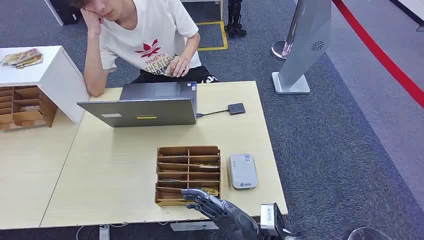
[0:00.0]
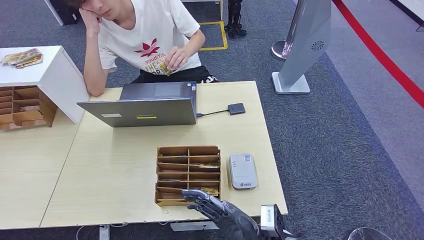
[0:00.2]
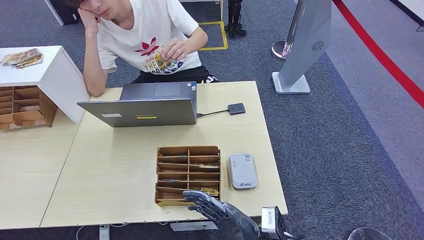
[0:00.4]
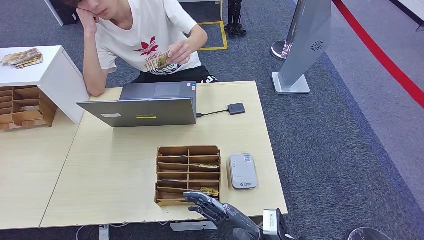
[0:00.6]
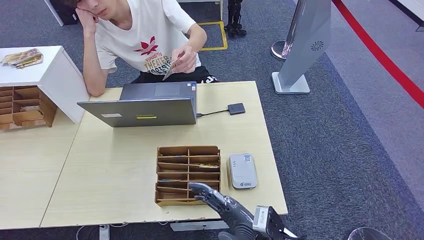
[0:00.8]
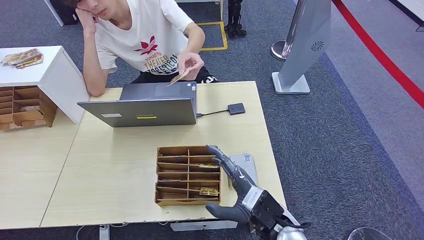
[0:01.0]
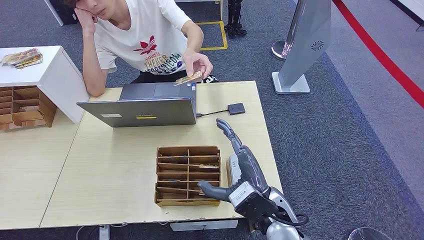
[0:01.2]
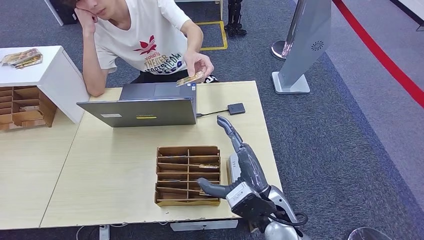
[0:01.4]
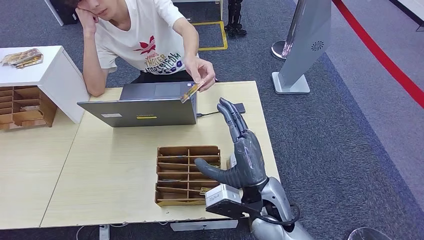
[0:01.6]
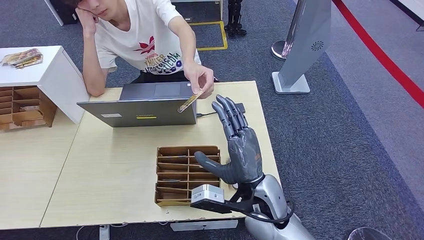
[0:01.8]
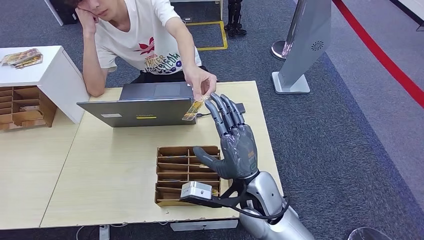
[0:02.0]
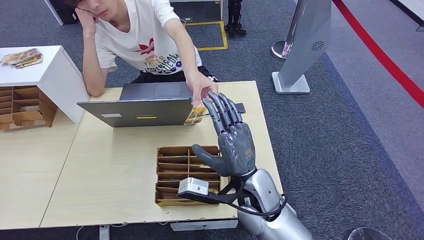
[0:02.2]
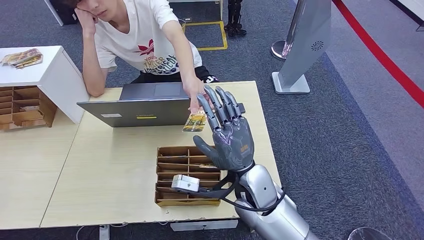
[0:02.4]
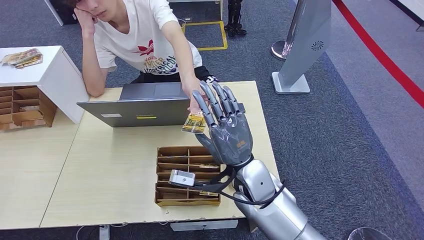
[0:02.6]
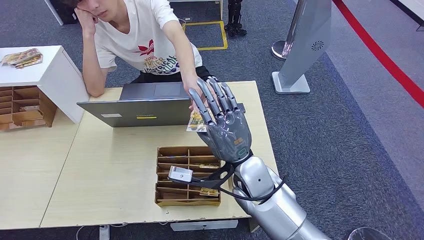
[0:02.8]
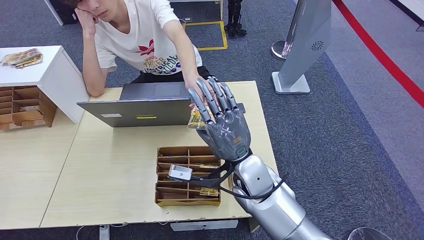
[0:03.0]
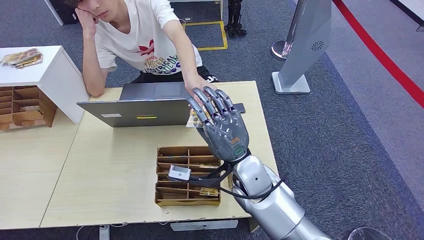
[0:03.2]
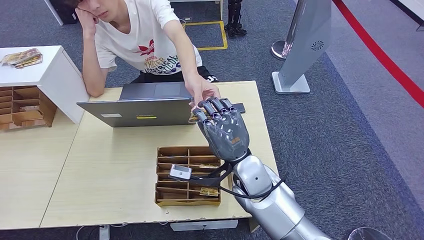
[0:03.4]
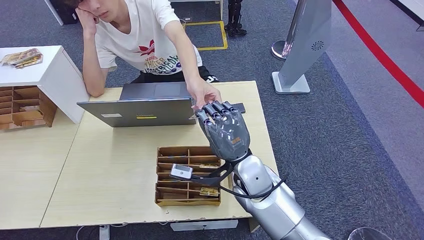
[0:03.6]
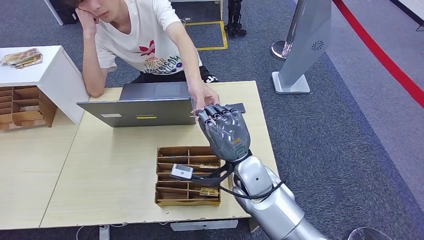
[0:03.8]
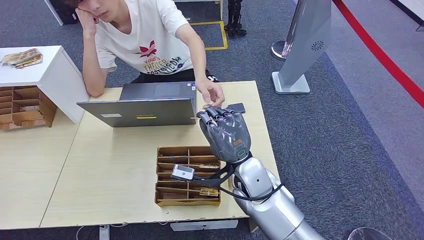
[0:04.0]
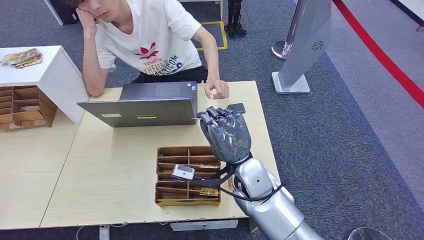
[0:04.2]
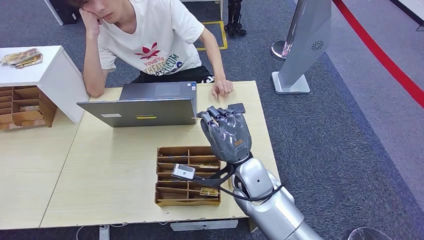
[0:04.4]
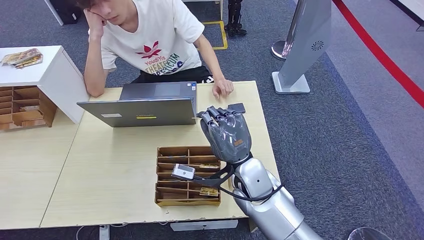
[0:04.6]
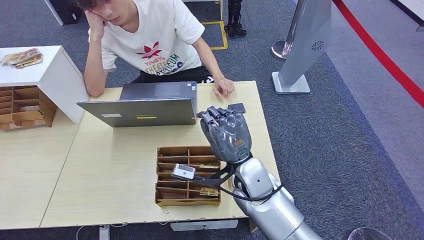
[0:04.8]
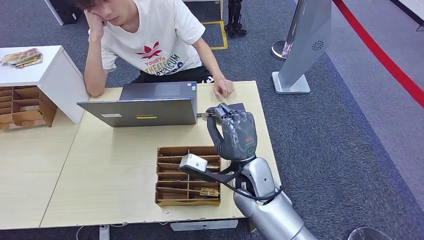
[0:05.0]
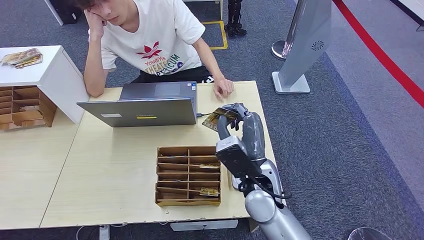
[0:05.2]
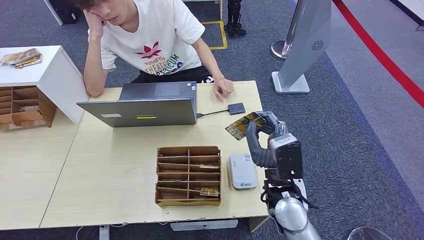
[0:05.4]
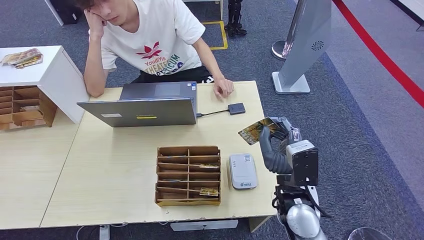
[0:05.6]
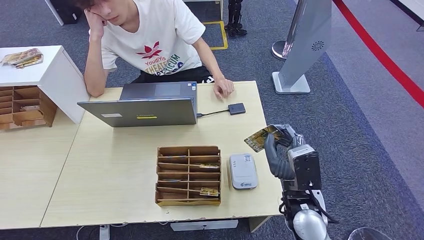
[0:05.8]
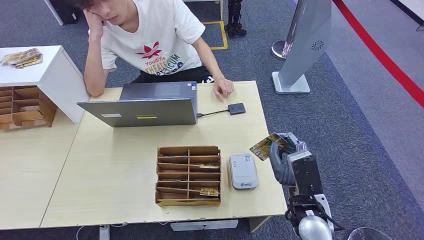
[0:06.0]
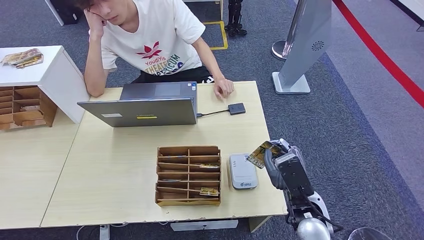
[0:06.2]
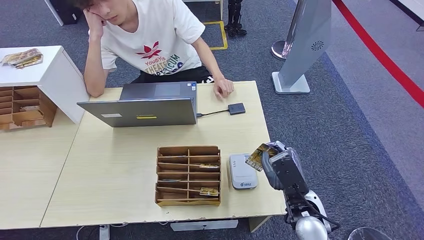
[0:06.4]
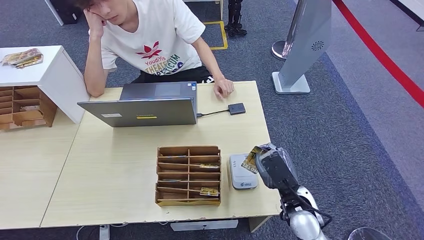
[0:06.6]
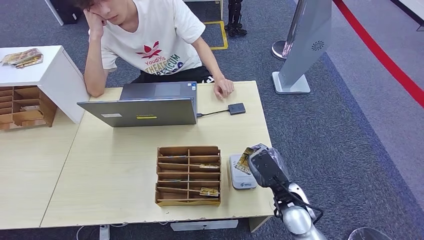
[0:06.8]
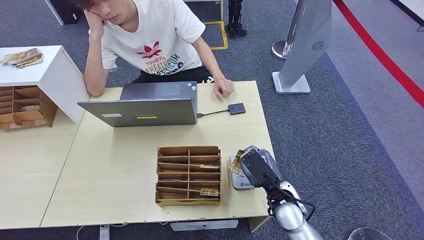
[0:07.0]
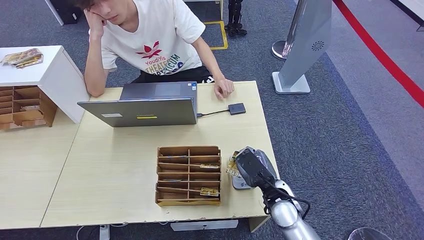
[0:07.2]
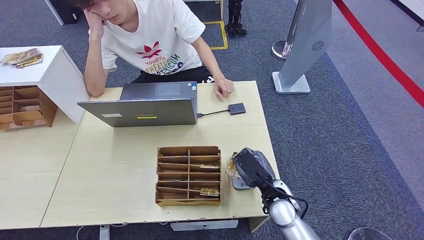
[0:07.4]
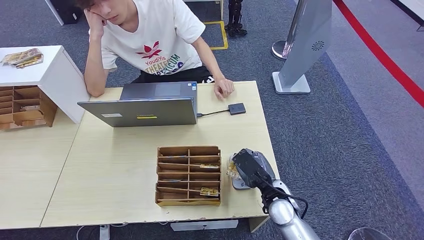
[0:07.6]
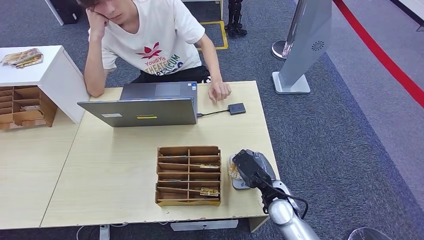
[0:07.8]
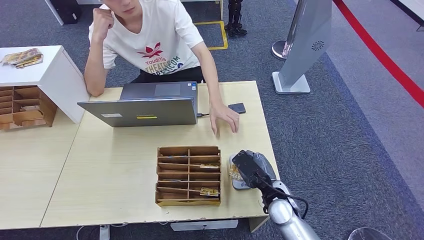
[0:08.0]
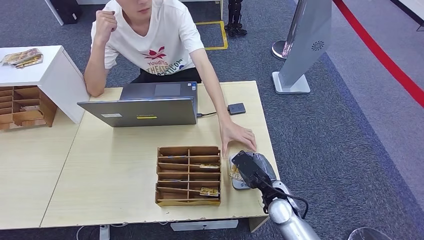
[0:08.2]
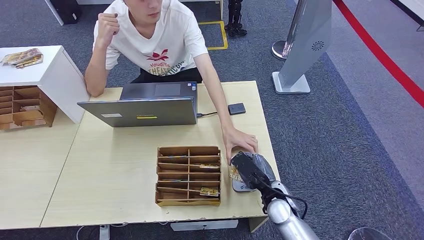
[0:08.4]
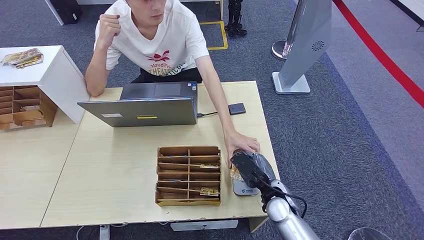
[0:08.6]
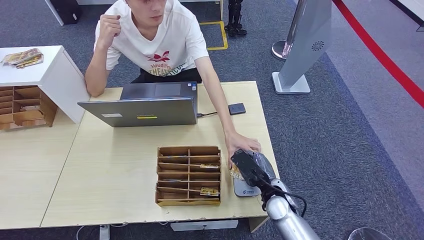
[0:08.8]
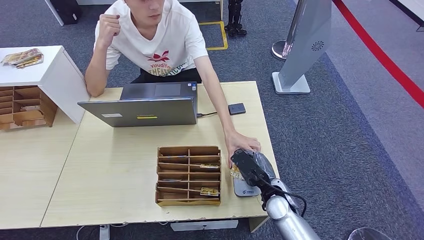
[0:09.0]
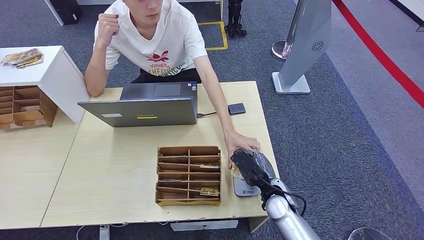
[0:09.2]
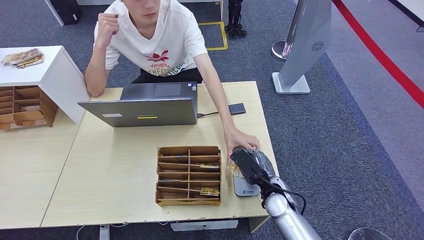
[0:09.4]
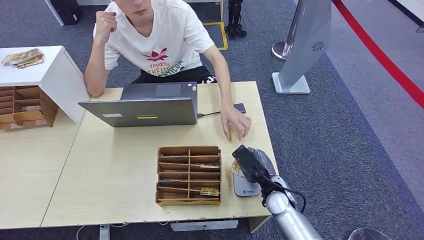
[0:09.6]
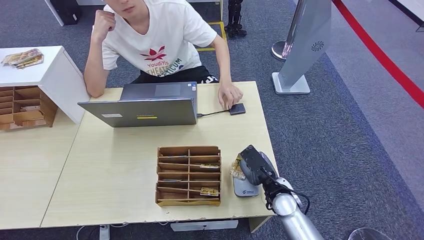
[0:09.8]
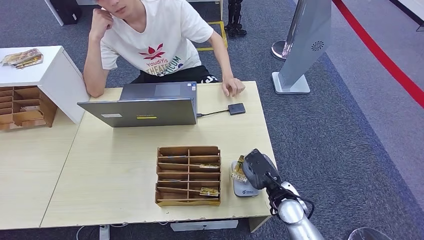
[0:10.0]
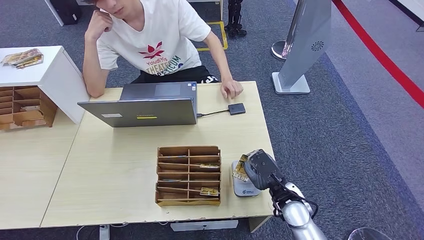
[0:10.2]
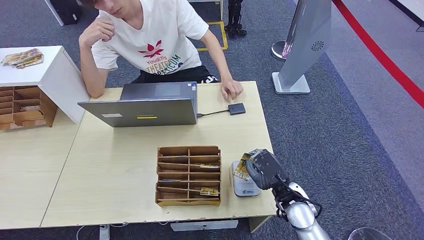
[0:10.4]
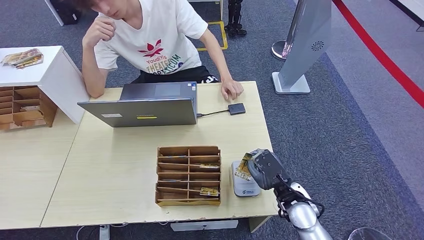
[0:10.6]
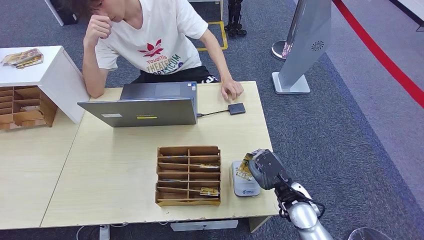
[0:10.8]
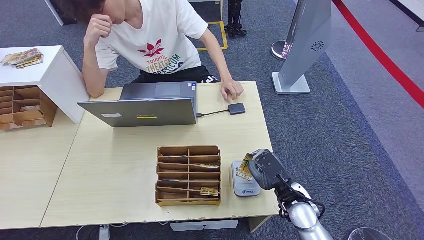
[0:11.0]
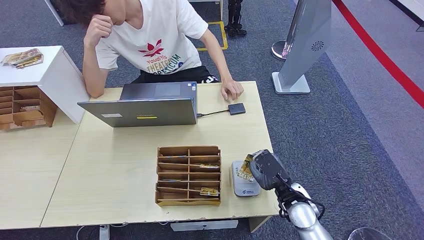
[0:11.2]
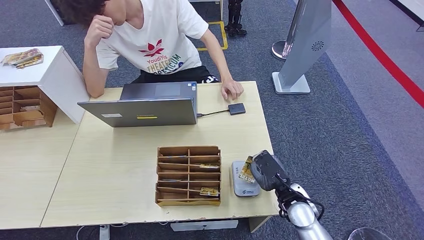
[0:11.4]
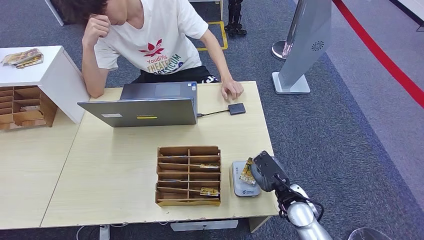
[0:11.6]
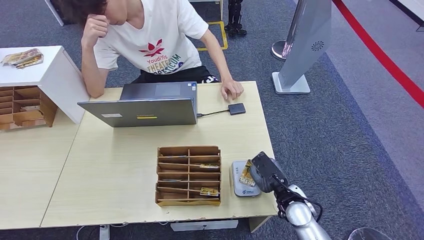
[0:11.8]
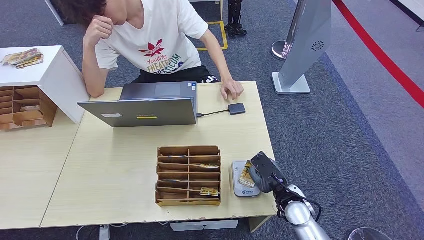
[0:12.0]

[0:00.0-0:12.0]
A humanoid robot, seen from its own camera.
Step, 0:00.0 to 0:04.6: Take the ID card from the person's hand.
Step, 0:04.8 to 0:09.4: Place the ID card on the card reader.
0:01.6 to 0:03.0: The right hand moves forward, roughly 5 cm.
0:03.0 to 0:04.4: The hands stay close to where they were, moving slightly.
0:04.4 to 0:06.0: The right hand heads to the right and backward, covering about 15 cm.
0:06.0 to 0:07.6: The right hand goes some 5 cm downward.
0:07.6 to 0:12.0: The hands stay close to where they were, moving slightly.

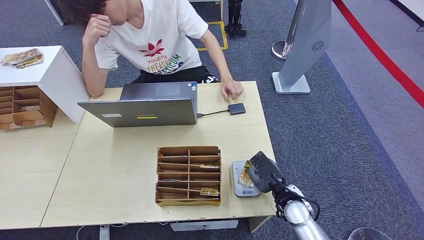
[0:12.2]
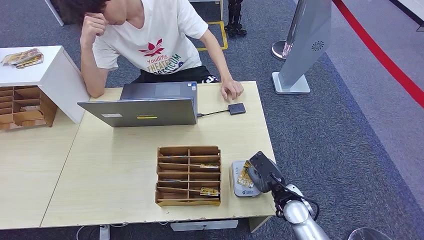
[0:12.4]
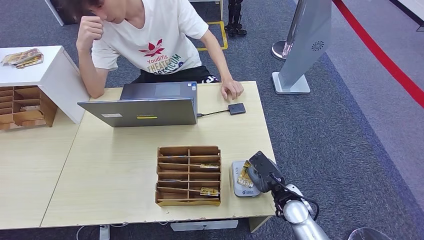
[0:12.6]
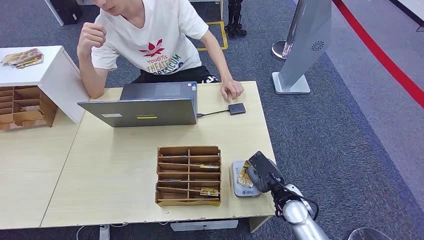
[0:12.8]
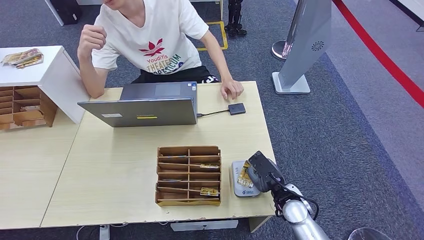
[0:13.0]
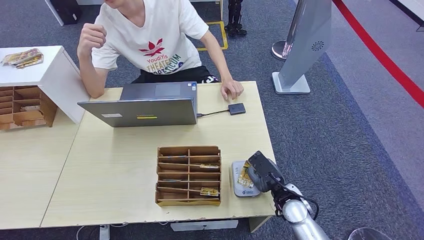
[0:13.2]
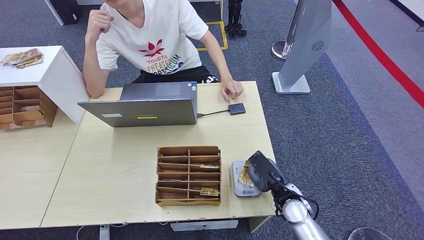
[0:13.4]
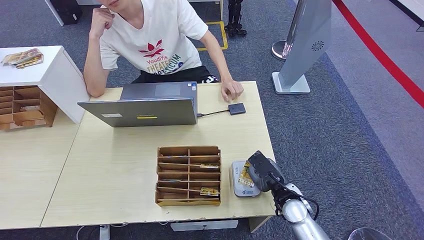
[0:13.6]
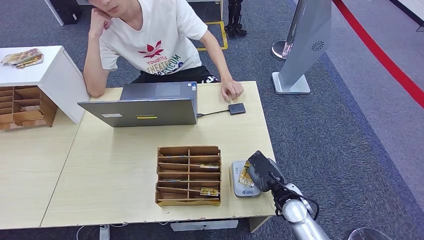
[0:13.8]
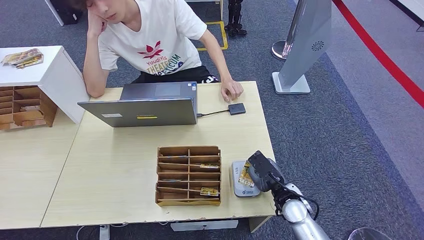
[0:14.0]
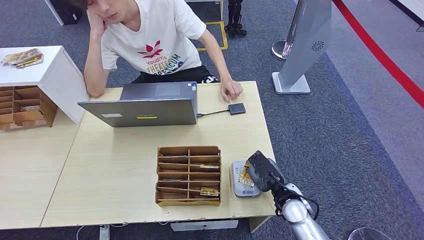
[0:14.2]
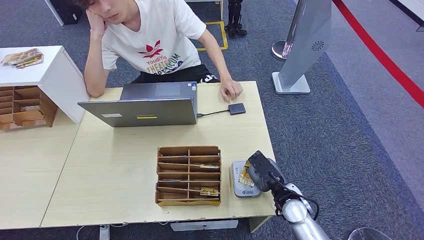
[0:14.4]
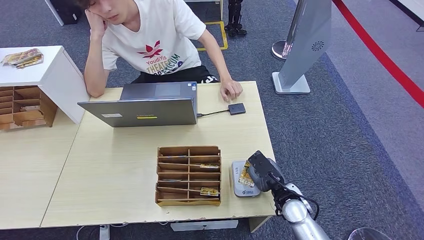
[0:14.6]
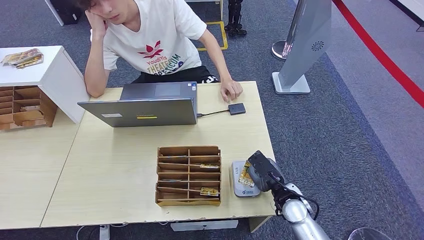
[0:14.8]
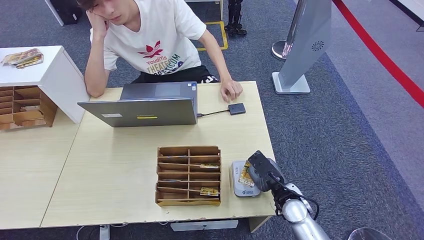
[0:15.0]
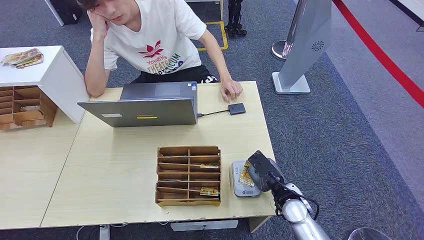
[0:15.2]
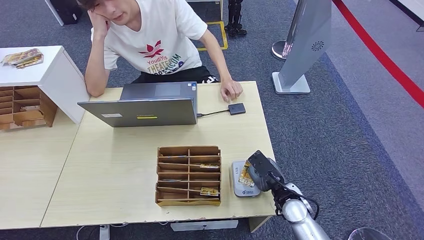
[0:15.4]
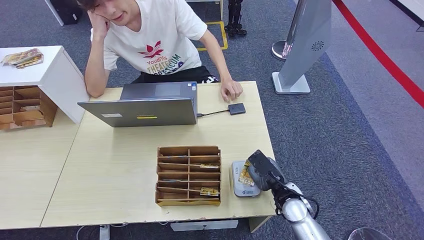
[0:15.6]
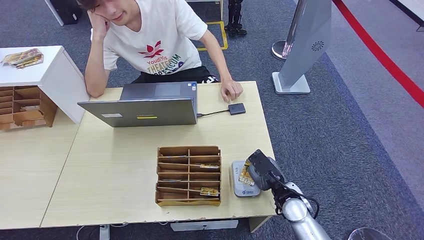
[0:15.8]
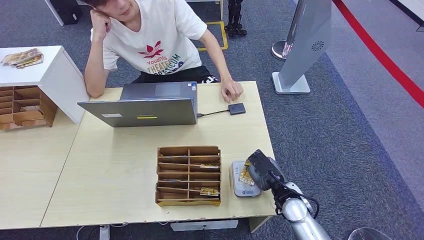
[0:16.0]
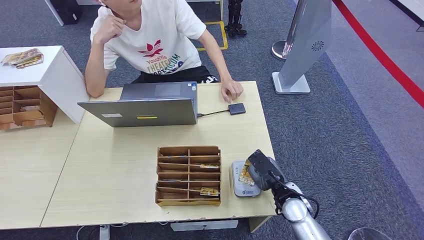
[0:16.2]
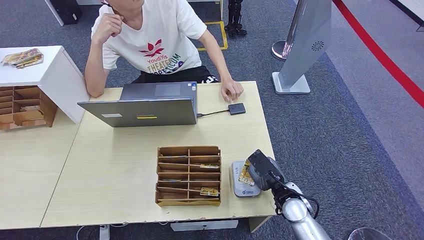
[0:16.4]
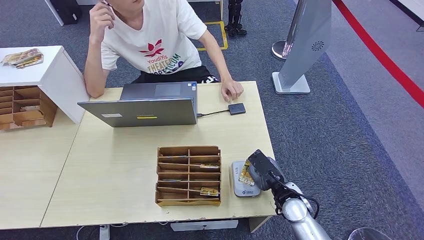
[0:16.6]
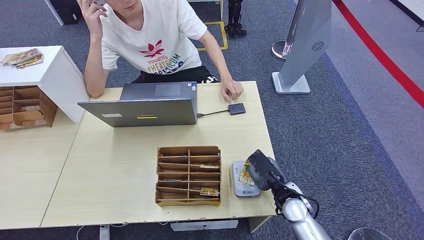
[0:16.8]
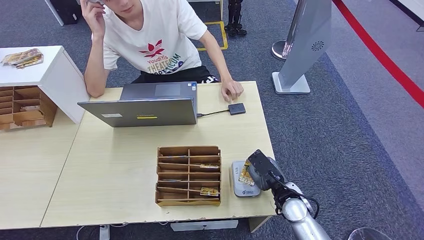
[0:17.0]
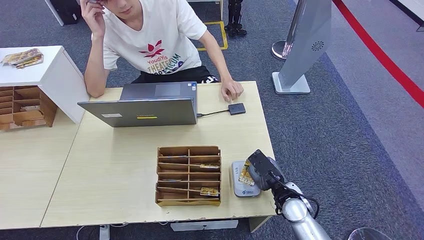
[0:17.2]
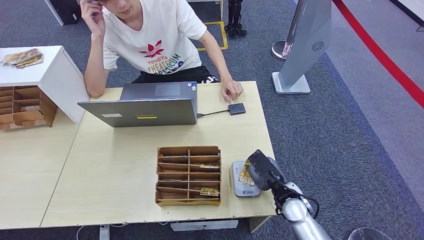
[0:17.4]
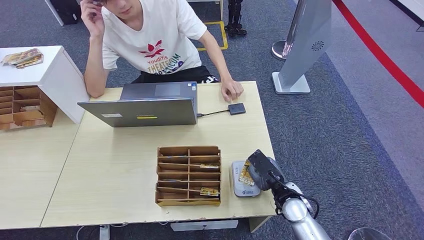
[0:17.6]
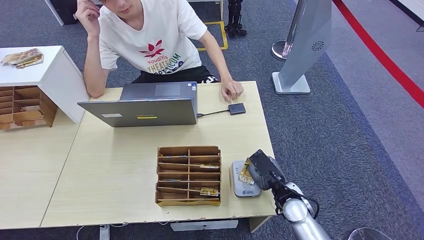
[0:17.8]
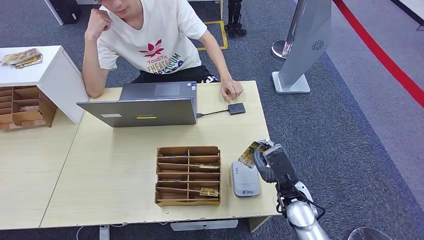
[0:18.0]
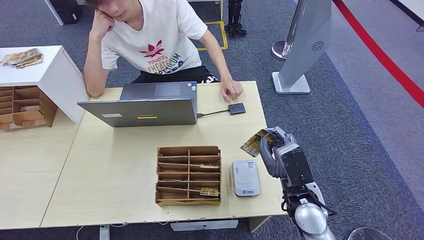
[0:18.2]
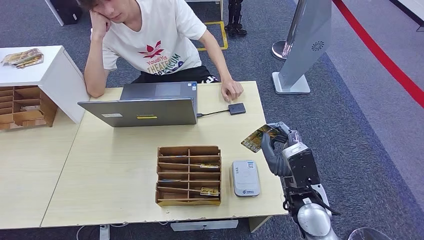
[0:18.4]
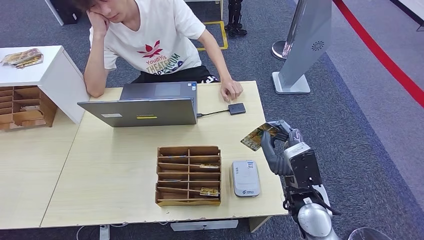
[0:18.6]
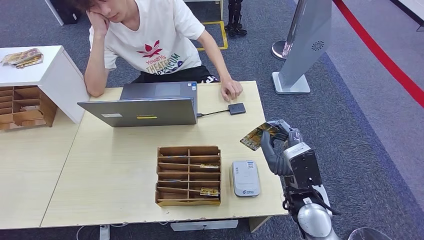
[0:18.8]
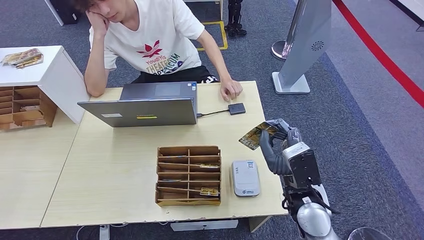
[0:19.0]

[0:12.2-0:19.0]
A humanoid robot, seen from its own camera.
0:12.2 to 0:17.6: The two hands keep their place.
0:17.6 to 0:19.0: The right hand goes some 10 cm upward.
